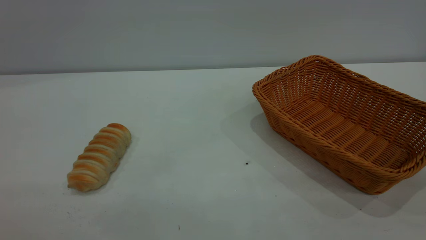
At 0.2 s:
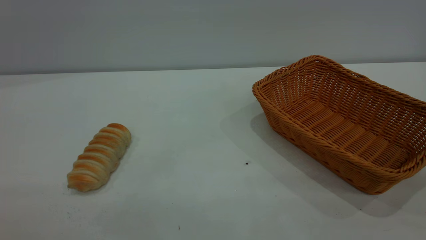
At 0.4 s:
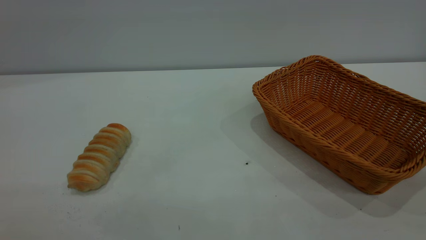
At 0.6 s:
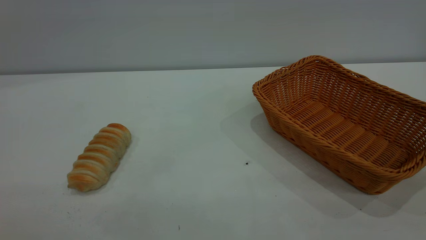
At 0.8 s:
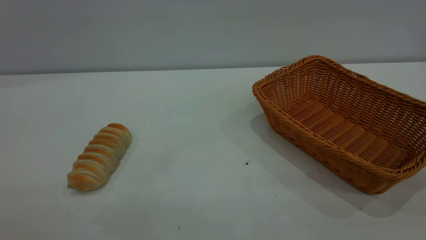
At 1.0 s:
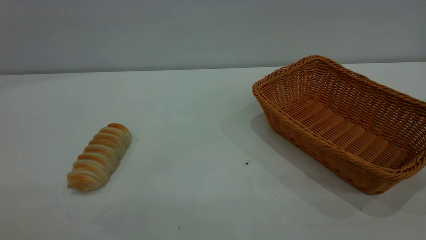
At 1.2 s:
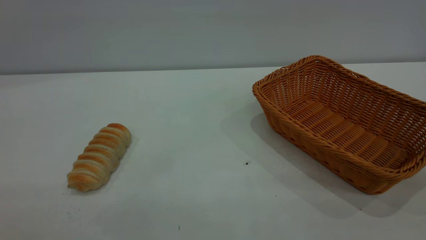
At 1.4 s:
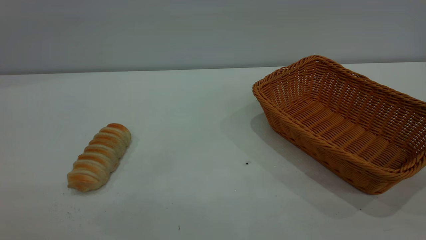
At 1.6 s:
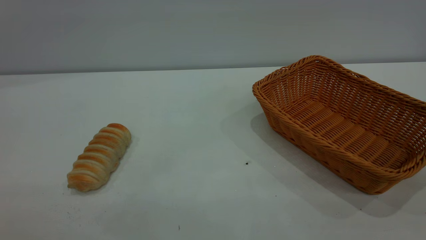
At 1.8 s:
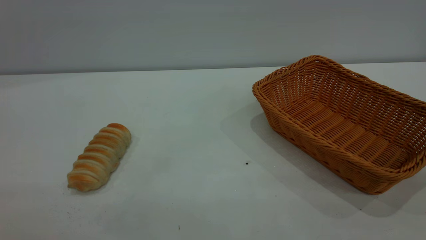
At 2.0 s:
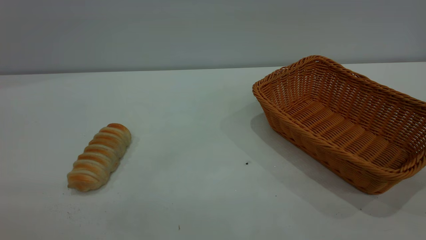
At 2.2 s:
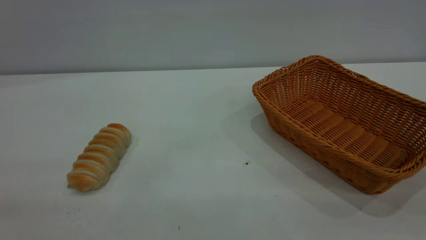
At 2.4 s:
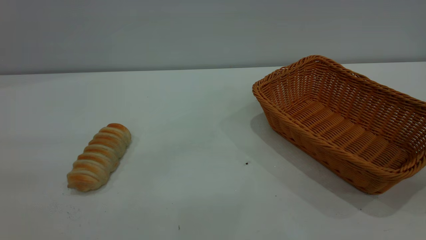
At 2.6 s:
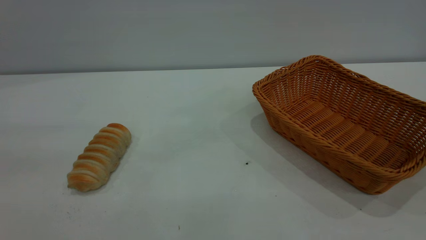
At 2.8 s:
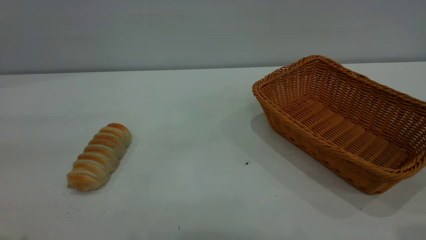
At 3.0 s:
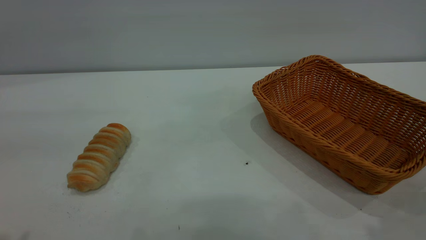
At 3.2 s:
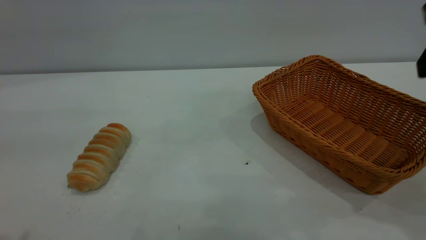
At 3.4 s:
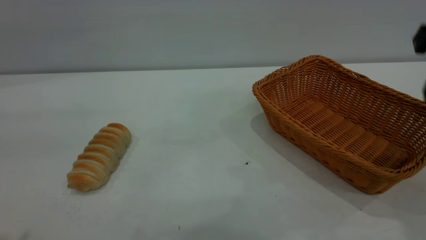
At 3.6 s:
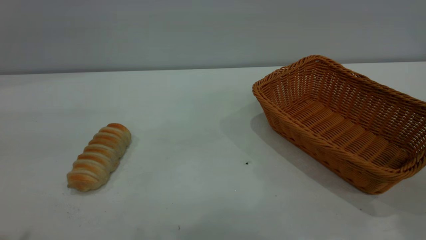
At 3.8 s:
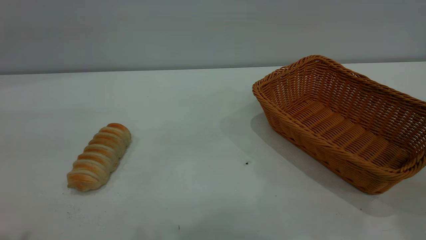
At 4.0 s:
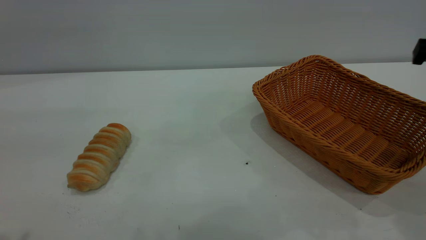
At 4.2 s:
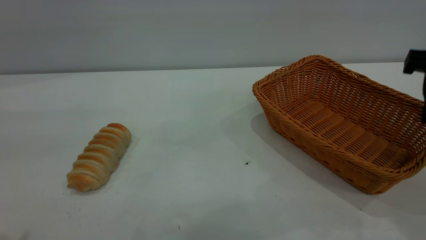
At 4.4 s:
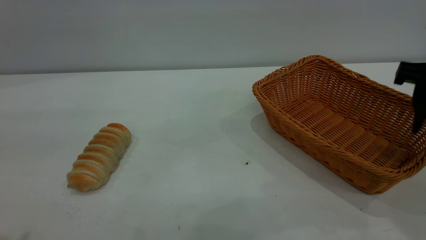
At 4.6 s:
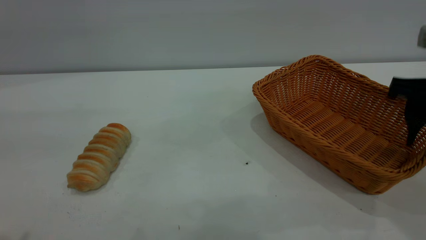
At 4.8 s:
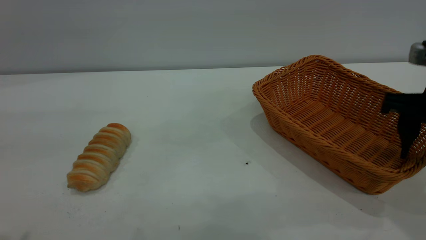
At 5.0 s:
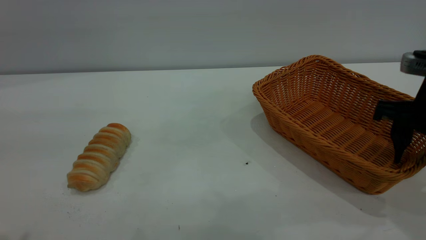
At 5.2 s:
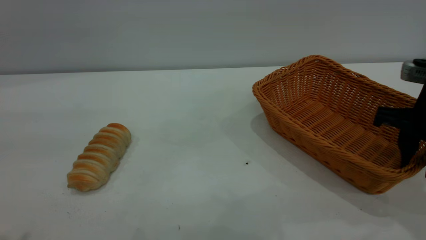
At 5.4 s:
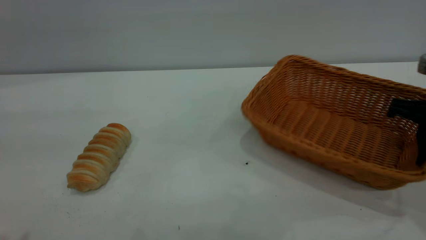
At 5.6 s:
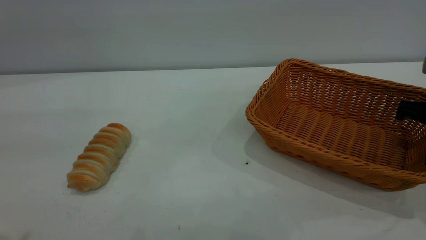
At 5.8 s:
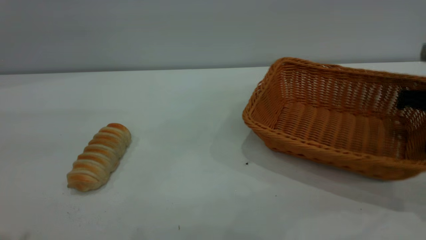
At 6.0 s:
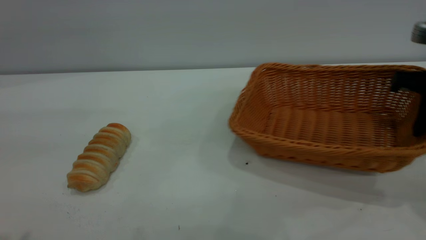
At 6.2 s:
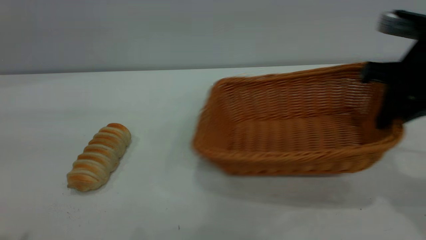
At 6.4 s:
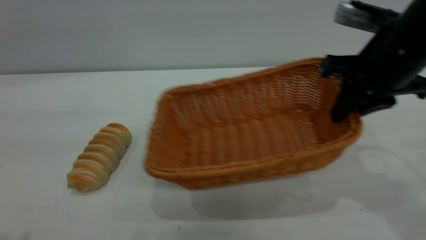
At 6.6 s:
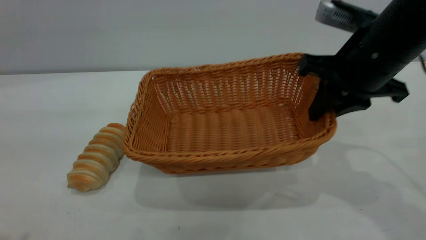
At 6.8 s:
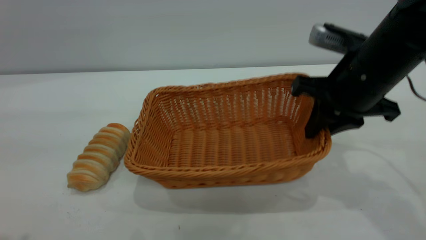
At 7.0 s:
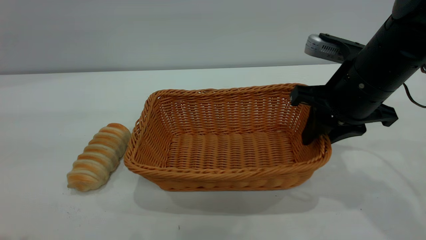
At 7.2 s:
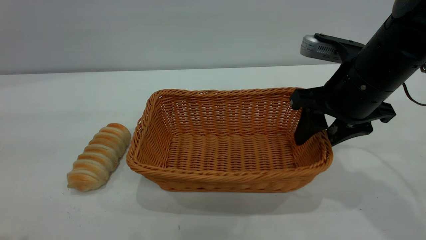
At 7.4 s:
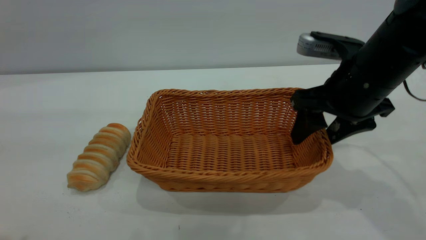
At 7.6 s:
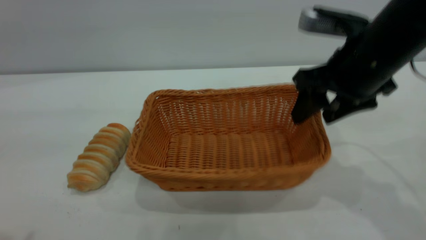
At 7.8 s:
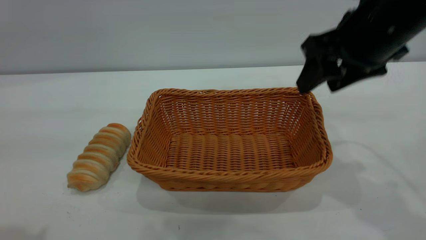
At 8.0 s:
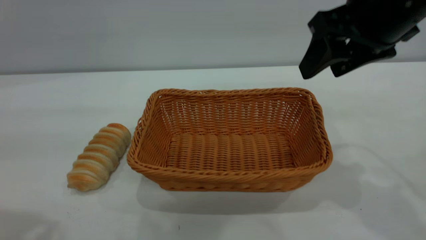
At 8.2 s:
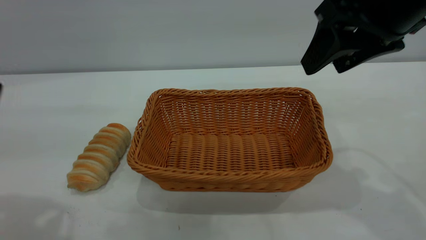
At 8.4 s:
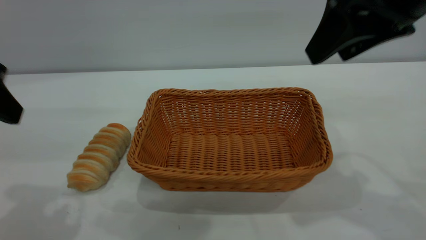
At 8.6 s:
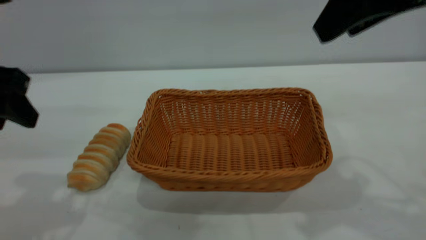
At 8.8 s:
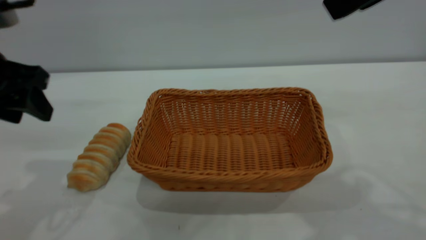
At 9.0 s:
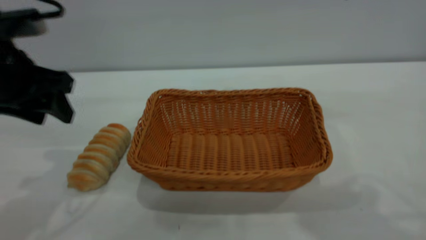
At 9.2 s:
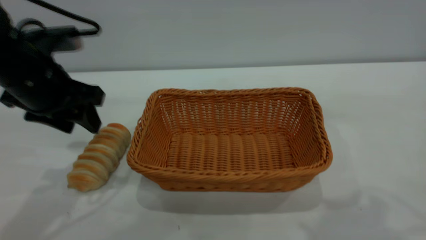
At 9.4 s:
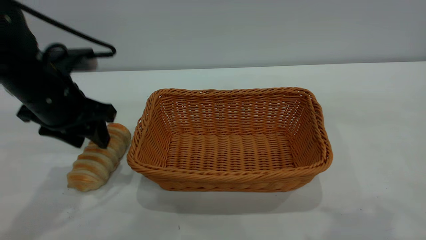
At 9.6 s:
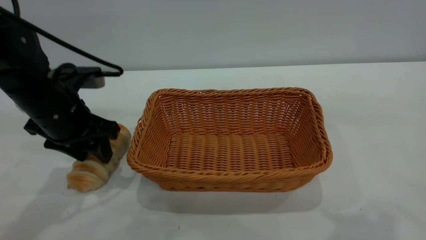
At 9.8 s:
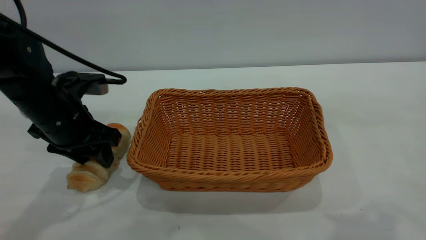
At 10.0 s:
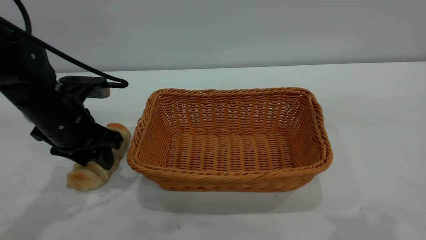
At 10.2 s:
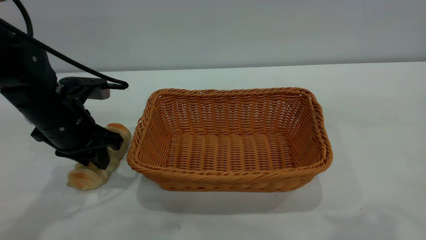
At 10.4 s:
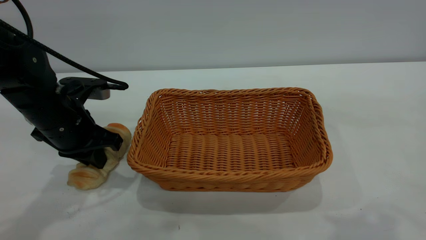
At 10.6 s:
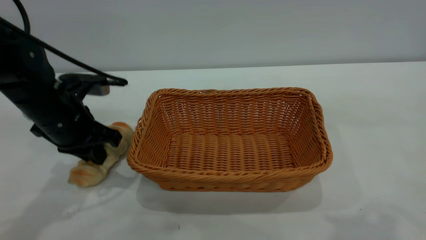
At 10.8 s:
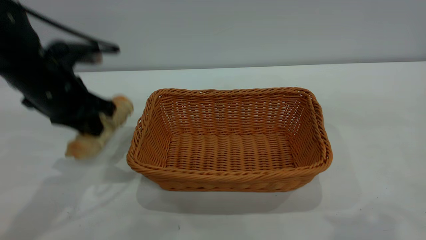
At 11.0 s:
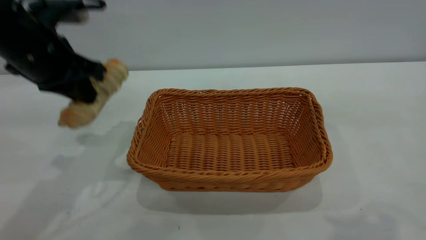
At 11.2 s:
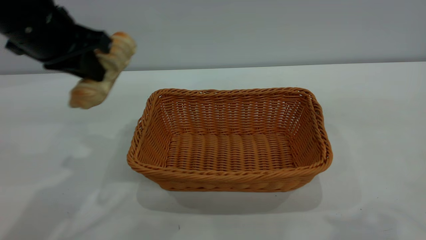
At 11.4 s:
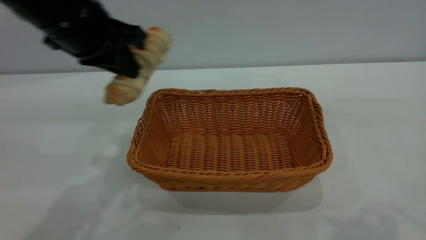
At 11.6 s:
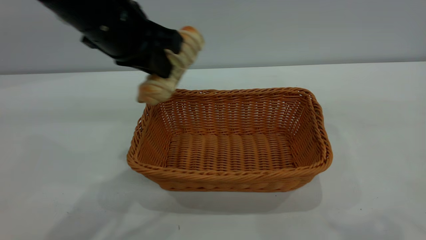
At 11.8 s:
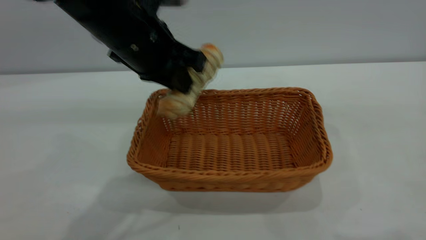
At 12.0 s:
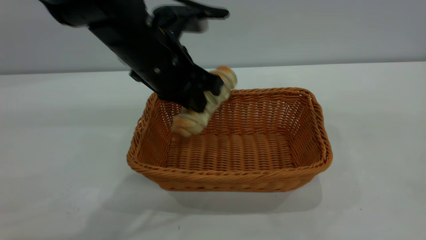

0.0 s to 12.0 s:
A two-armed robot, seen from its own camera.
Task of the whole recording: One hand grasps the yellow basket and places it in the middle of the table, while the other hand picks up the long bread and puts it into the yellow basket.
Step, 0.0 to 7.8 s: Move the basket to the center of view.
0.0 to 1.6 s: Neither gripper changes place.
3.0 to 4.4 s: The right gripper heads downward and forward, covering roughly 10 cm.
4.4 to 6.0 s: The right gripper closes.
6.0 to 7.6 s: The right gripper is displaced to the left by some 10 cm, and opens up.
7.6 to 9.0 s: The left gripper is displaced forward and downward by approximately 20 cm; the right gripper travels upward and backward by roughly 20 cm.
9.0 to 10.4 s: The left gripper is displaced downward by approximately 10 cm, and closes its fingers, while the right gripper moves approximately 5 cm.
10.4 to 12.0 s: The left gripper heads to the right and upward, covering some 15 cm; the right gripper moves backward, some 5 cm.

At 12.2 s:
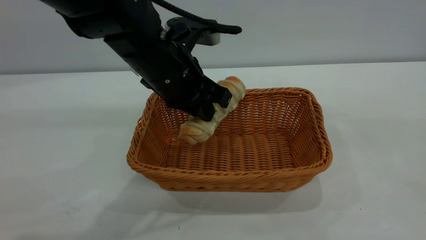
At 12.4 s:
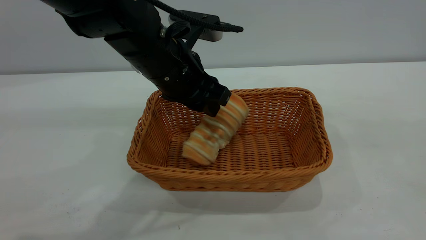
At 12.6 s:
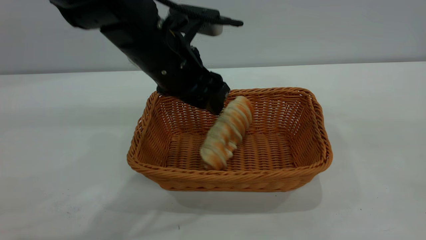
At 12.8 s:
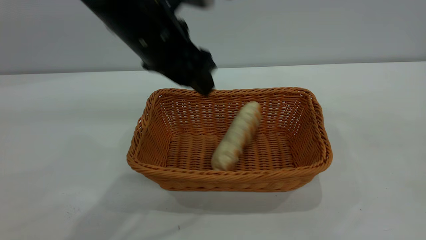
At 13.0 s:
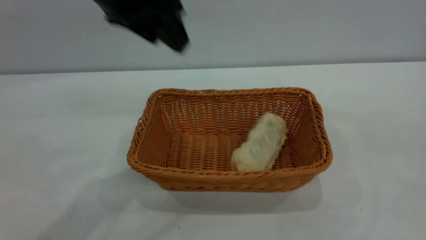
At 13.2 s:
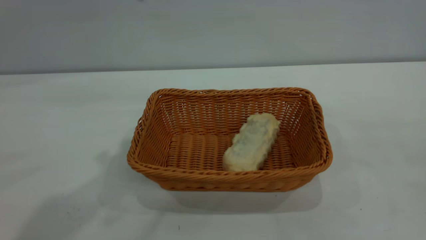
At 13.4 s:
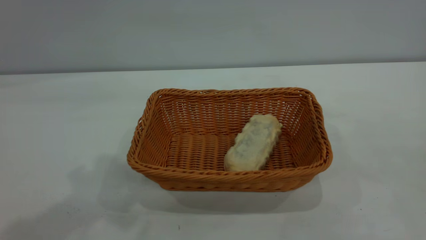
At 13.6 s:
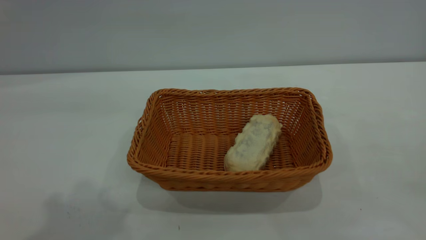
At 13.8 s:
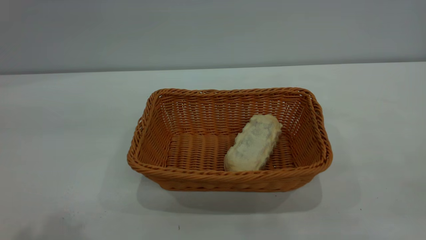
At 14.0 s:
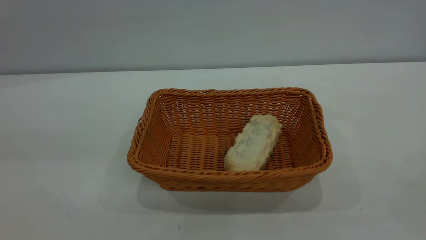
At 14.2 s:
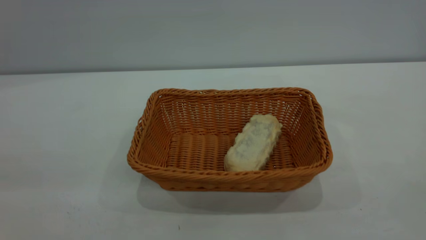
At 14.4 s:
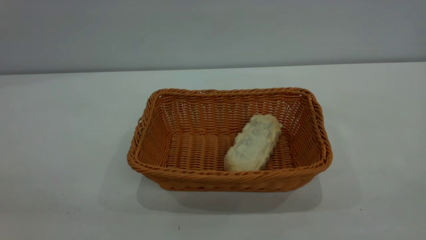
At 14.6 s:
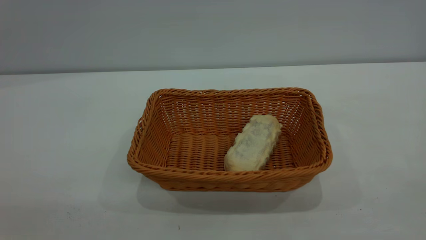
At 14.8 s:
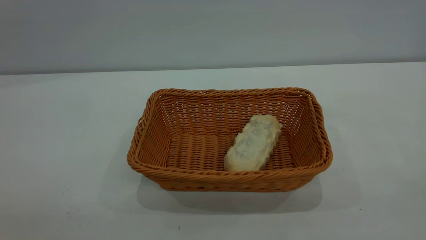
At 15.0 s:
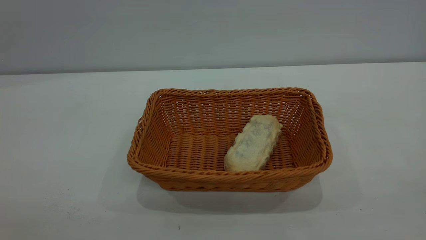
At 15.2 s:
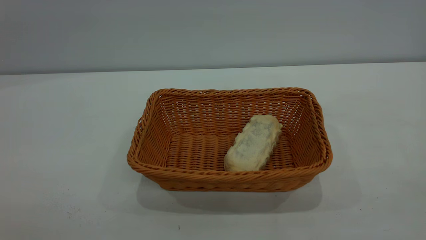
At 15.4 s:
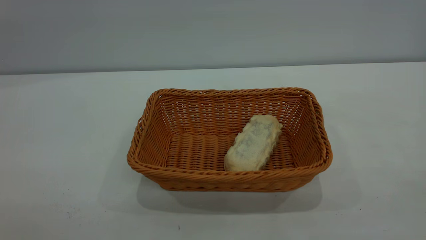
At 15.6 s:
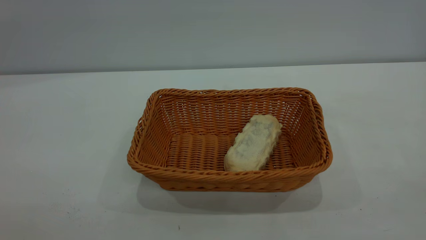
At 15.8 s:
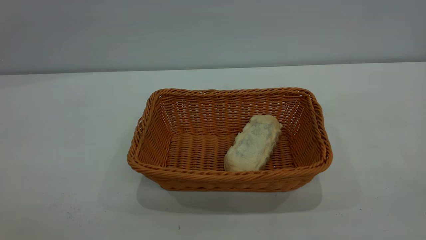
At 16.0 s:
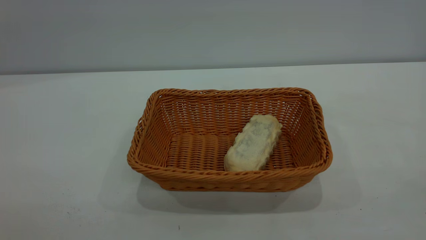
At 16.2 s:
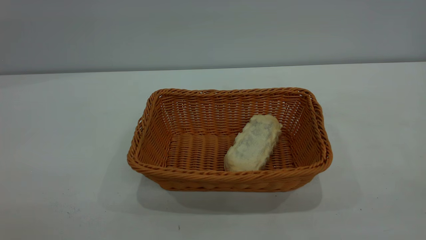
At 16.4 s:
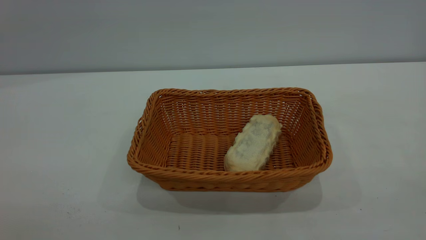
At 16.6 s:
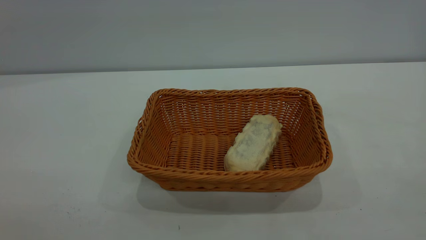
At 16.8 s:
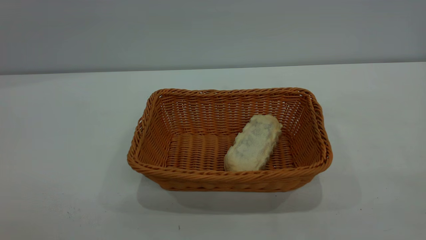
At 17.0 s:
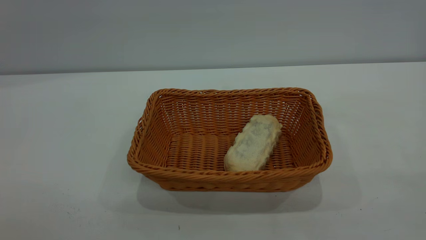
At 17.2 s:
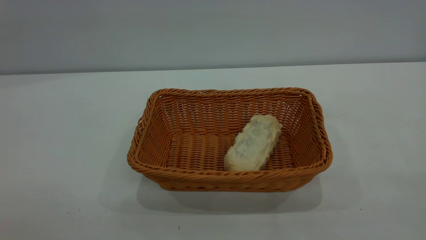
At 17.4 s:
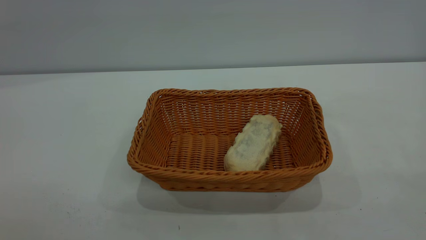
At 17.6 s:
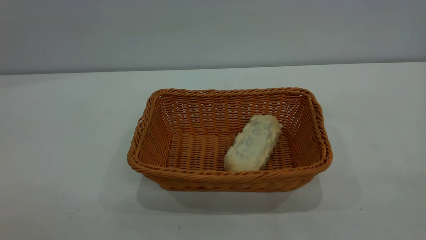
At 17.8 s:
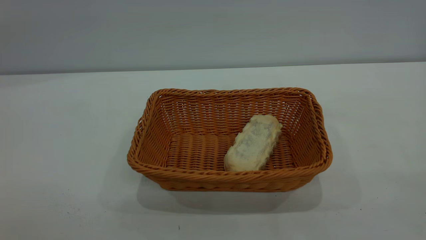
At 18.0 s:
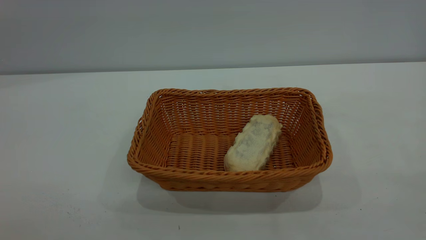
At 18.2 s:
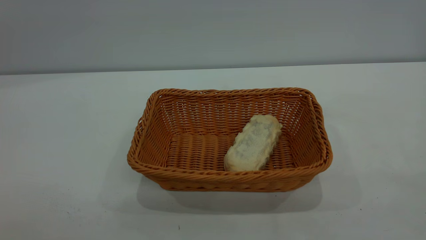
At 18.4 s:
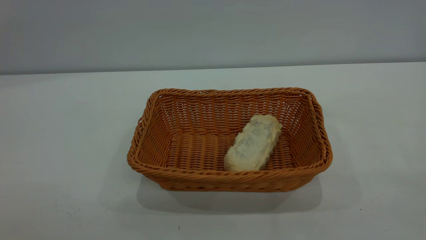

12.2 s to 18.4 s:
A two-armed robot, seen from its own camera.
Task of the whole recording: One hand grasps the yellow basket and places it in the middle of the table, while the other hand picks up the long bread and puts it into the yellow basket.
12.2 to 13.8 s: The left gripper heads upward, backward and to the left, covering roughly 35 cm, and opens up, while the right gripper shifts approximately 15 cm backward, to the right and downward.
16.8 to 18.4 s: Both grippers stay about where they are.
